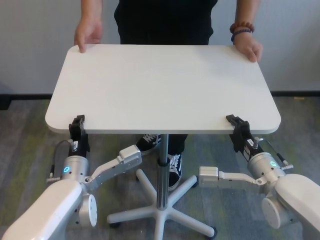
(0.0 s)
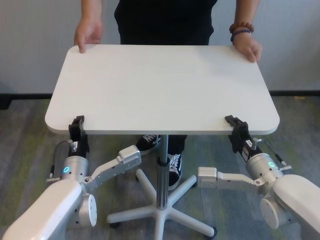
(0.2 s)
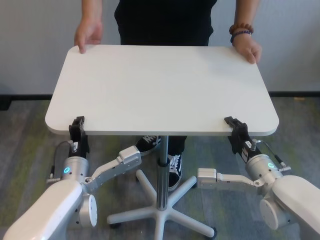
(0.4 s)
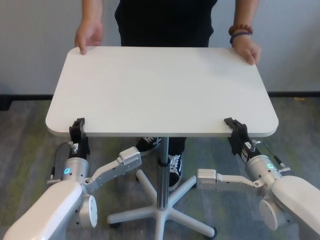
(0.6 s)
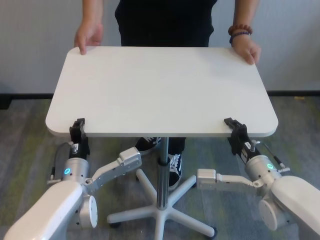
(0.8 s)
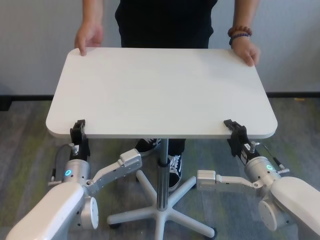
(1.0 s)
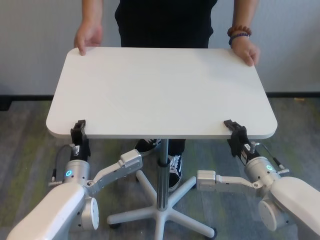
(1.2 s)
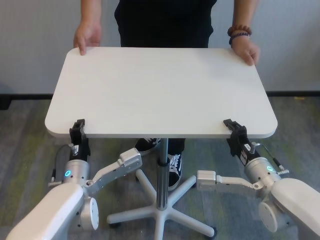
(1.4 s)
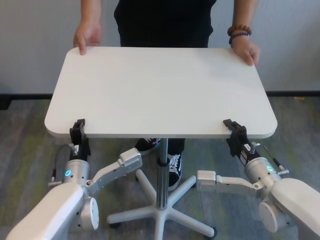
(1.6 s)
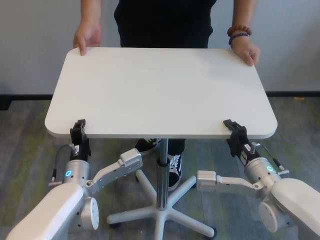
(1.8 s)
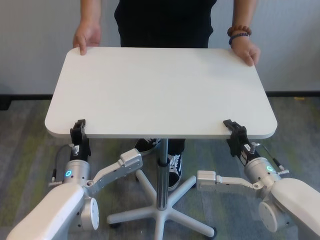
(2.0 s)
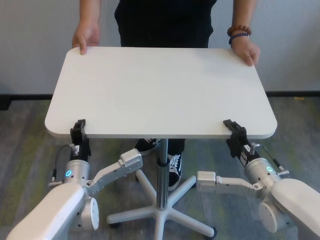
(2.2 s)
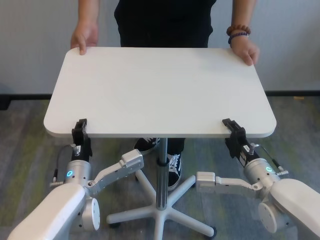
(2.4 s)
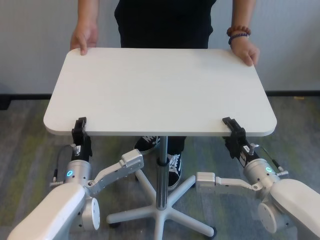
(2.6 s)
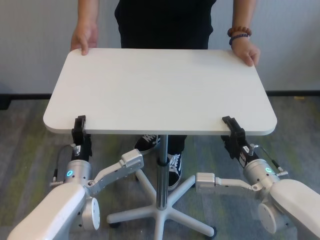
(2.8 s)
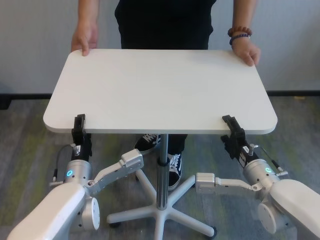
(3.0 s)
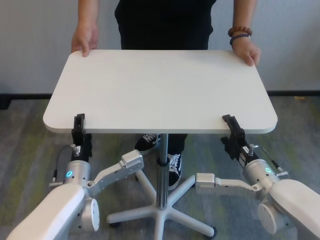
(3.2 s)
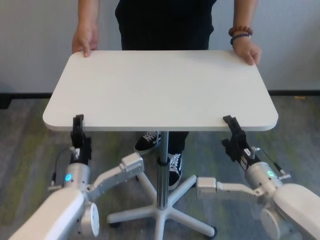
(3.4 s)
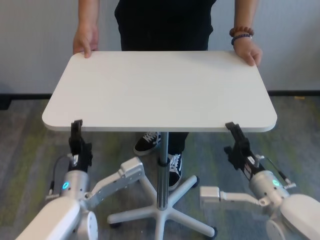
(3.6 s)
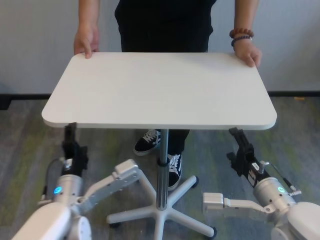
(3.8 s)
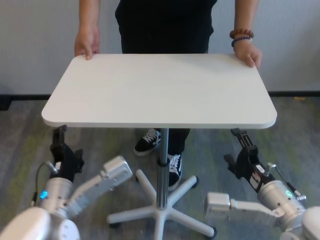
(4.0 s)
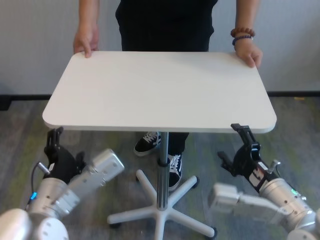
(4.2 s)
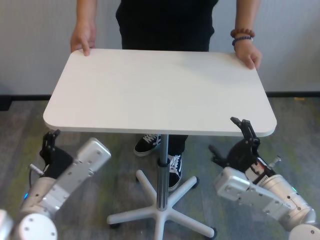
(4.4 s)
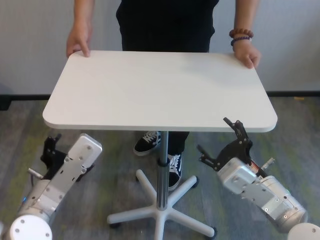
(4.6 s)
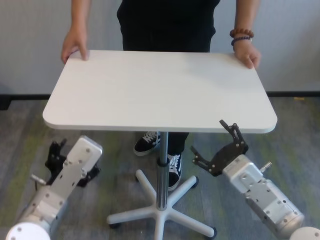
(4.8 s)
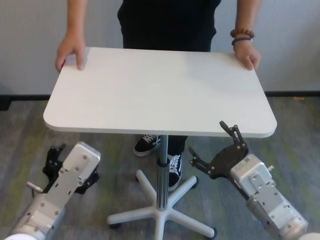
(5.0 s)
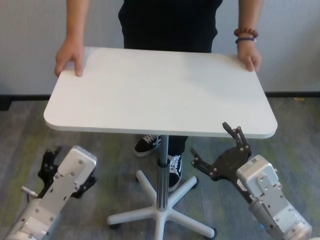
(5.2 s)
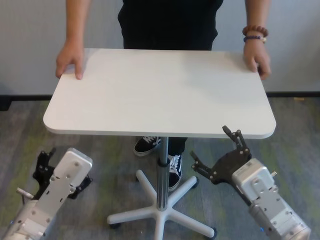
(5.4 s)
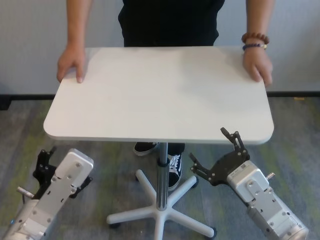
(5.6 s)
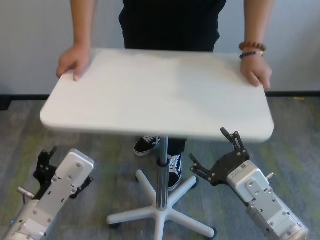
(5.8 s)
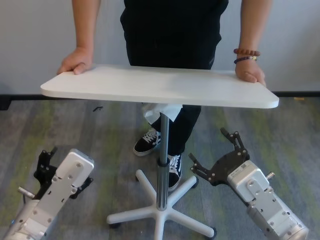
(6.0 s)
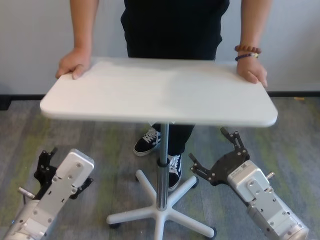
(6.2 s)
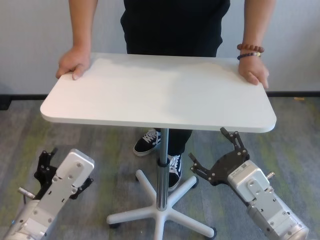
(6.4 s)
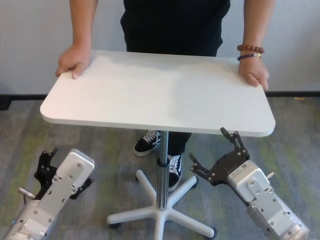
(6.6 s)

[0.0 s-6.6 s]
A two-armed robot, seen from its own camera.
Task of the whole recording: human machine collaborative table moving.
Step, 0.0 to 3.6 s: Move the table forward with both grippers.
